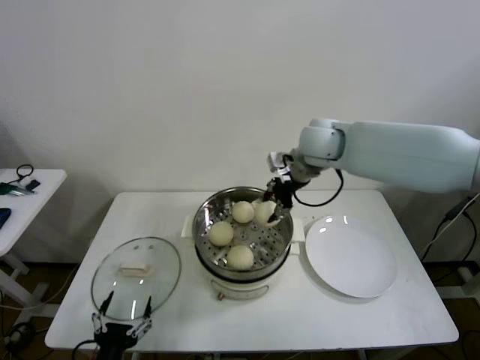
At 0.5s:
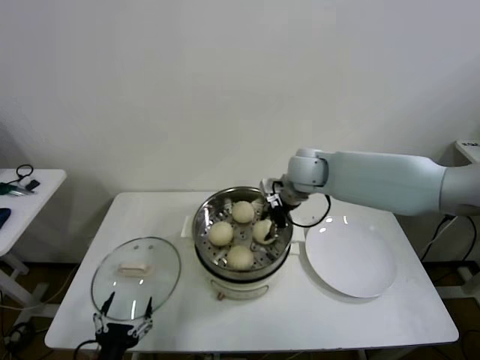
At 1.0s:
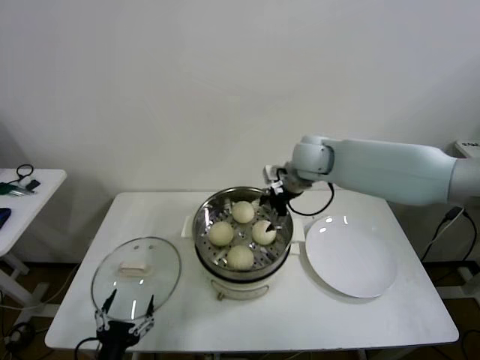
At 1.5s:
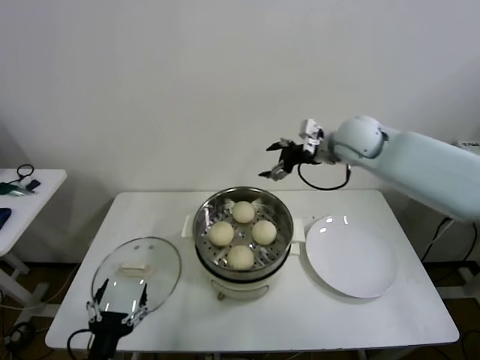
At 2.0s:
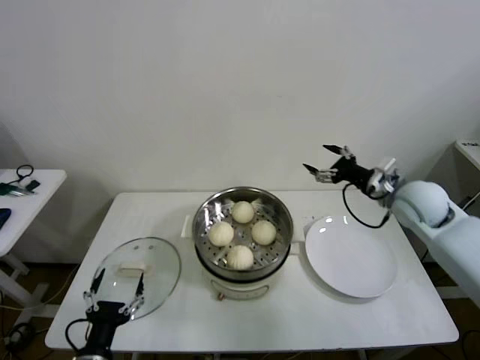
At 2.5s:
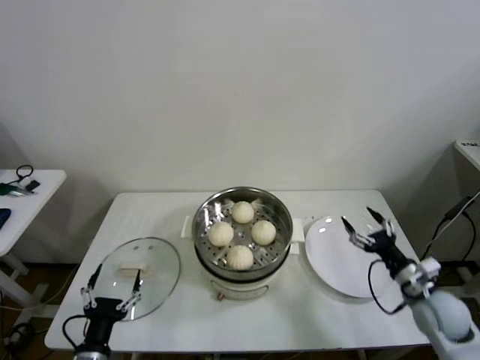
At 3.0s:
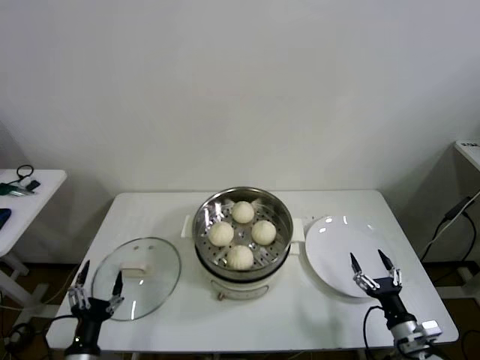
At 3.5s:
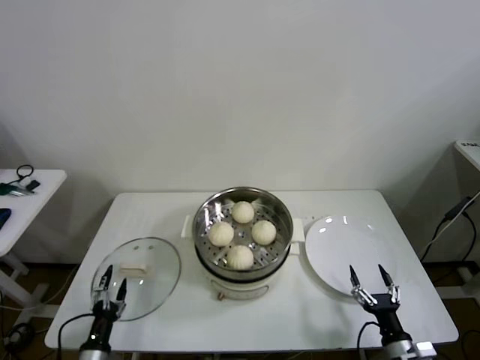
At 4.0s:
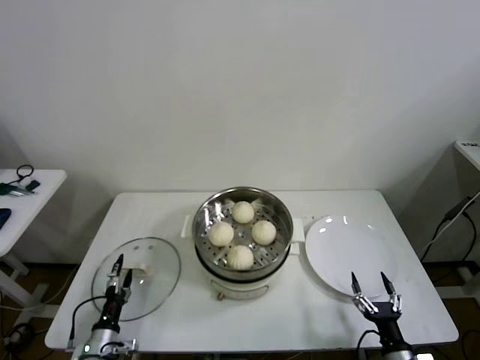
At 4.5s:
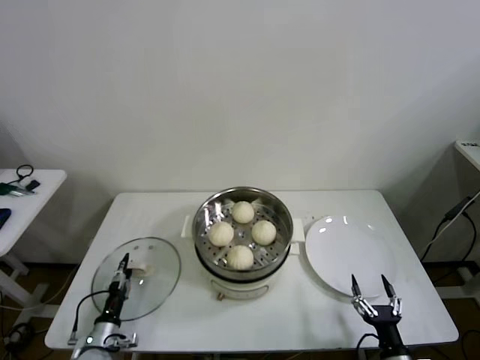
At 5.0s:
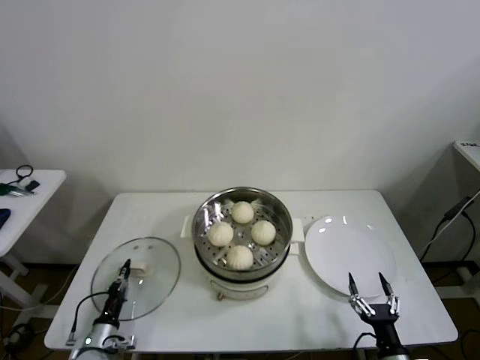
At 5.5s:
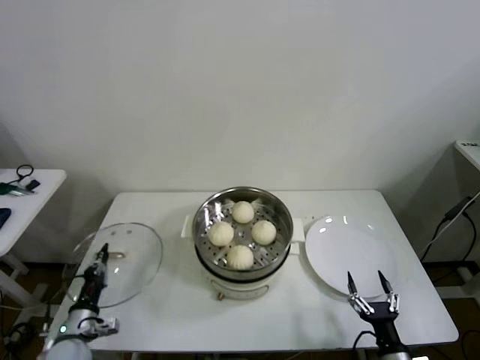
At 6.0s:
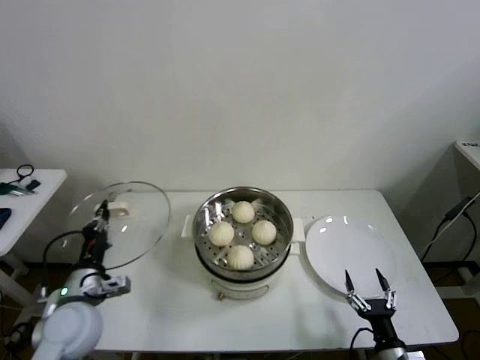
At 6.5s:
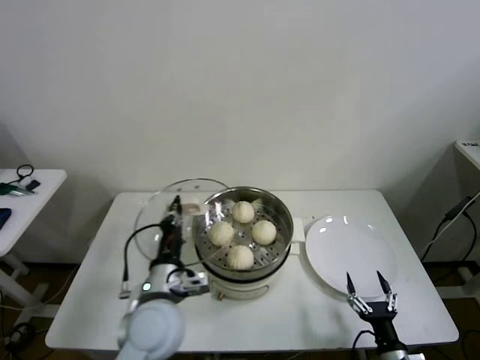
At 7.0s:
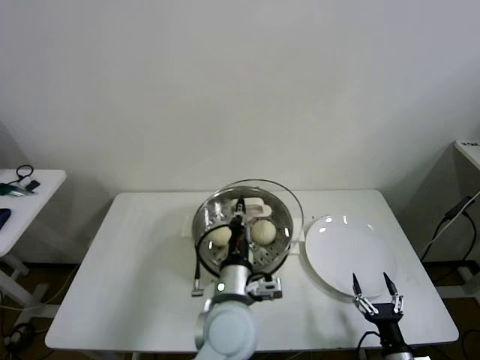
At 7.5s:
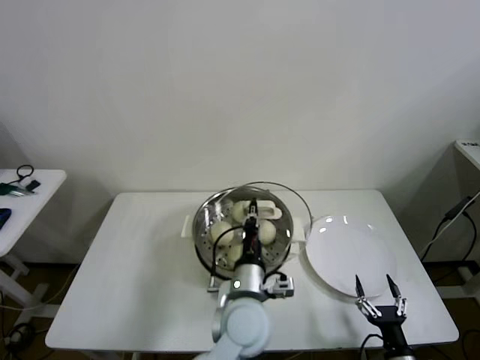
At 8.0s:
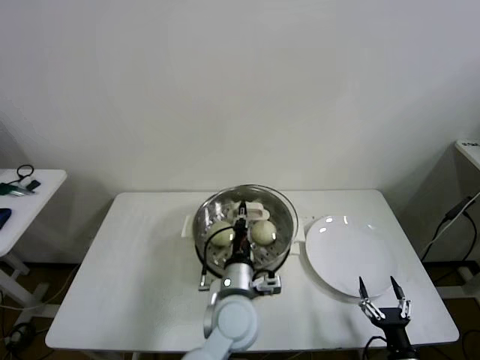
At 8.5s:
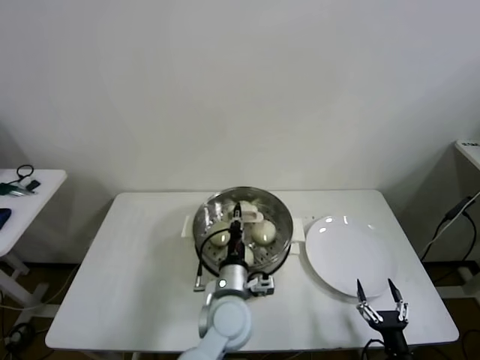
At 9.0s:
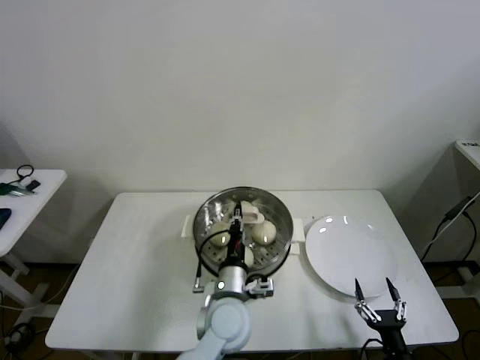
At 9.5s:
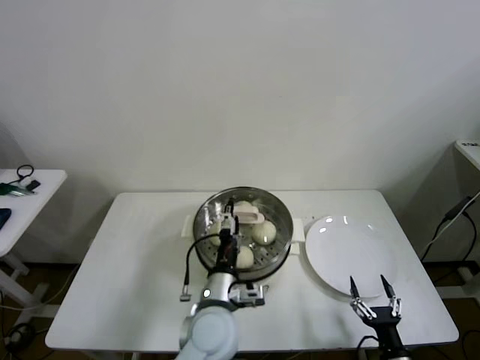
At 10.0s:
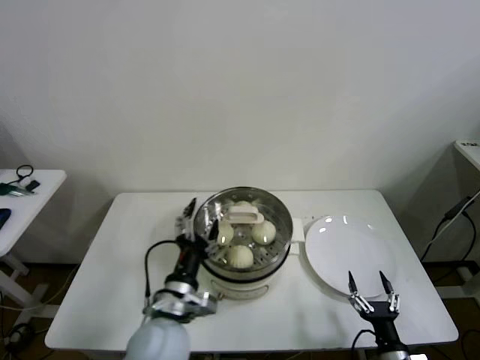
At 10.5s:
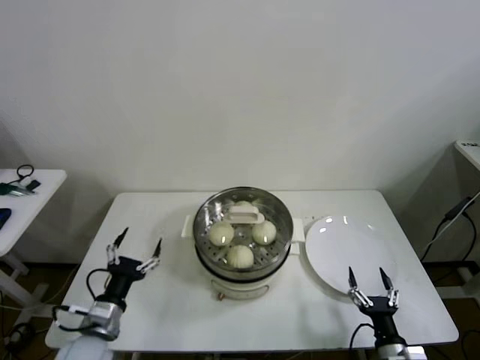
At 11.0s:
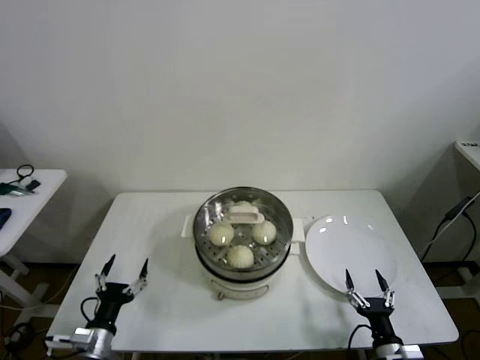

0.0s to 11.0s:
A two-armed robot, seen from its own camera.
Task of the whole recording: take steamed baozi put them in steamer then cover it.
Step, 1.0s to 5.0s: Grasp the pot lid with left gripper.
Step, 5.5s to 9.5s: Place the pot lid on the steamer with left gripper.
0.0s to 2.0s: The right gripper is displaced to the right, downward and backward by roughly 25 cm, and opens up.
2.0s to 3.5s: The left gripper goes approximately 15 cm downward and to the left, while the right gripper goes roughly 40 cm downward and backward.
3.5s to 5.5s: The left gripper shifts about 5 cm forward, moves roughly 5 cm downward and comes back, and closes its fingers.
5.5s to 7.5s: The left gripper heads to the right and upward, covering about 40 cm.
7.5s to 9.0s: The left gripper shifts by approximately 5 cm.
9.0s to 11.0s: The left gripper is displaced to the left by roughly 30 cm, and opens its fingers.
